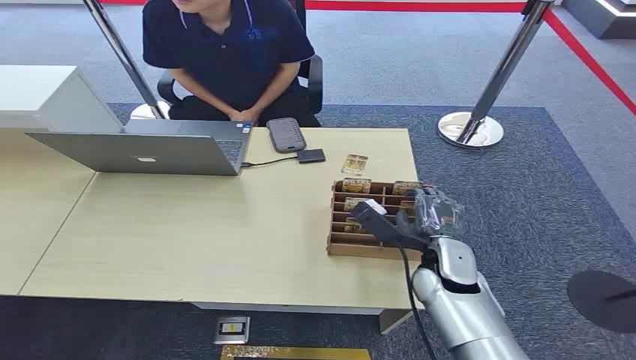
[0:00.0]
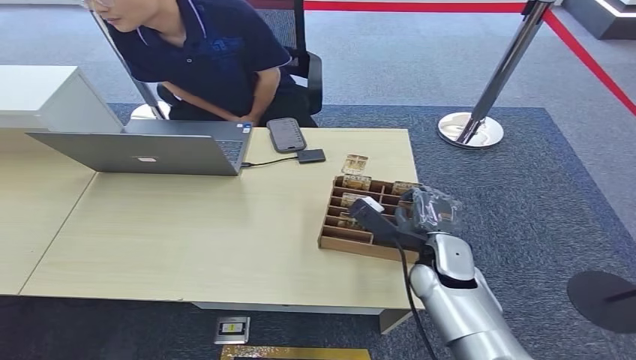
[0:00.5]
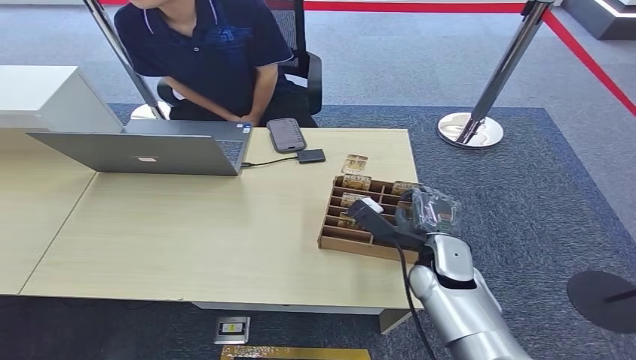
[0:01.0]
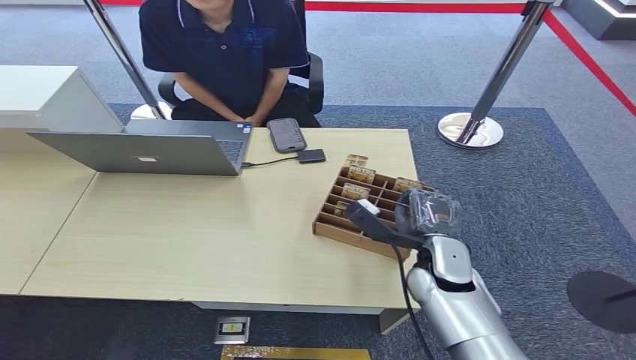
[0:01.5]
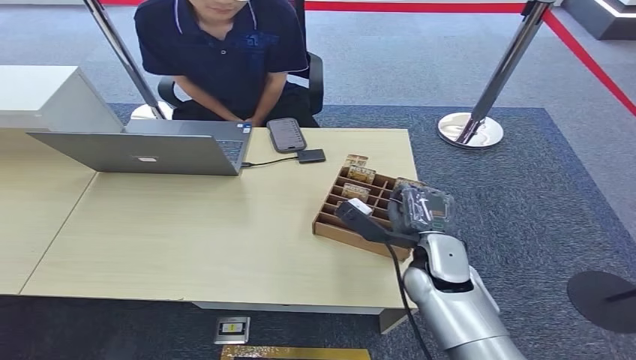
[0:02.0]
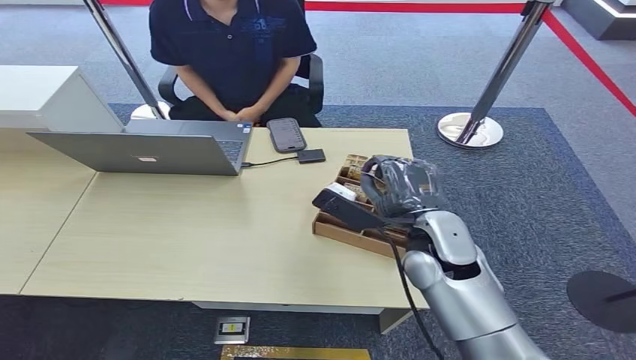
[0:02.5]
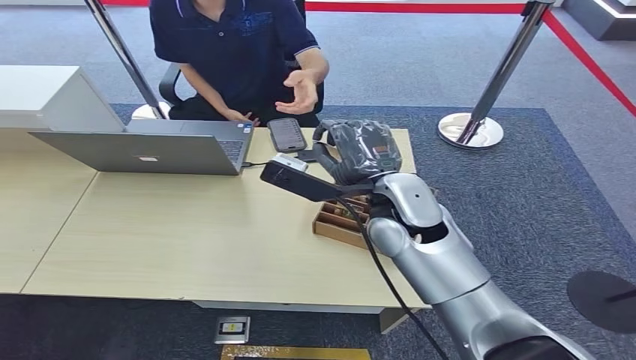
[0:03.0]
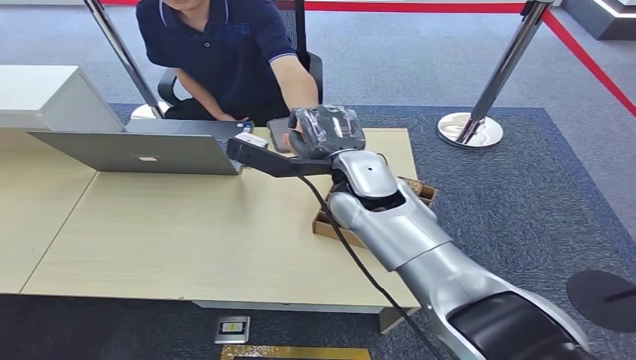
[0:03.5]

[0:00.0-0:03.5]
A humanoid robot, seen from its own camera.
Step, 0:00.0 to 0:03.0: Pick up the key card from the card box.
0:02.0 to 0:03.5: The right hand heads upward, to the left and forward, covering about 20 cm.
